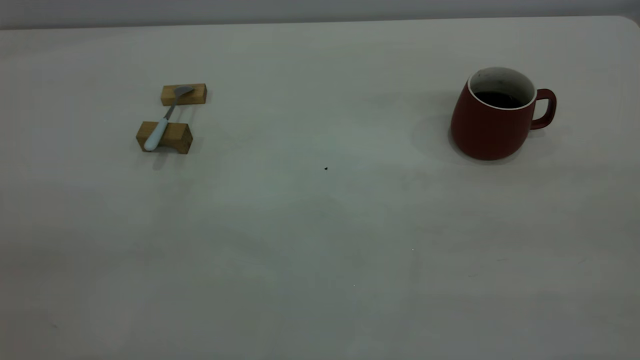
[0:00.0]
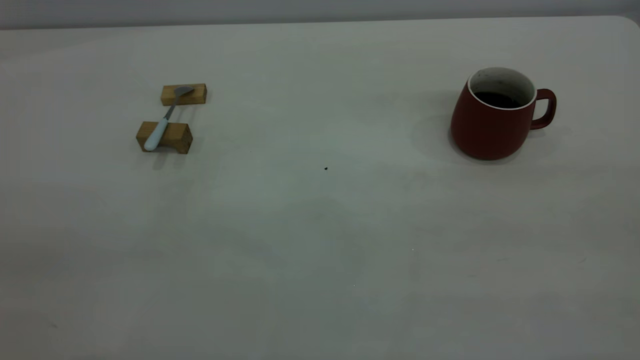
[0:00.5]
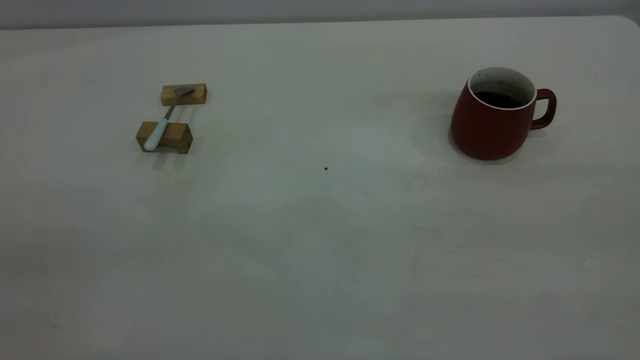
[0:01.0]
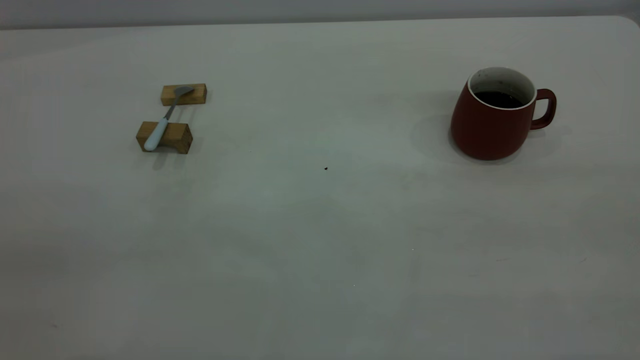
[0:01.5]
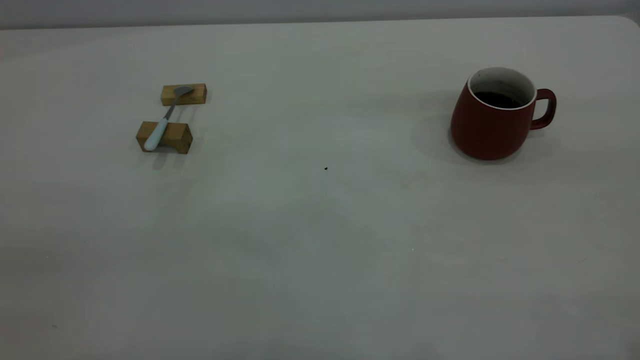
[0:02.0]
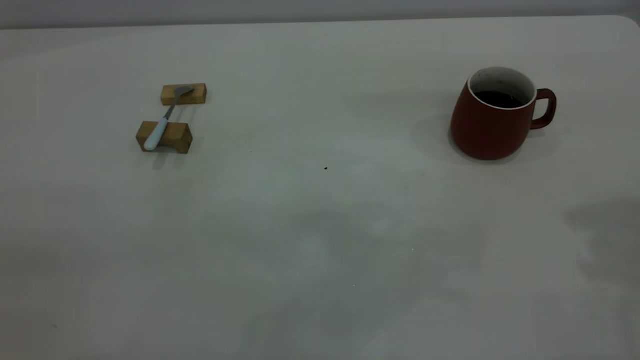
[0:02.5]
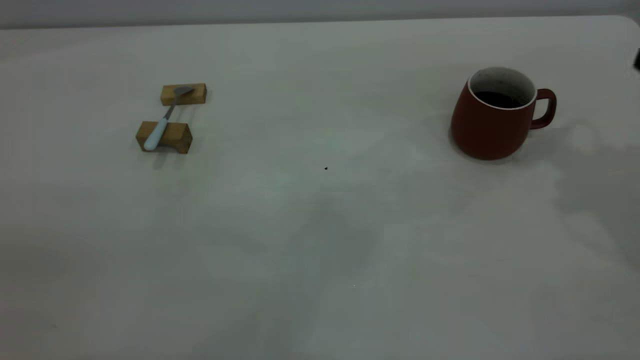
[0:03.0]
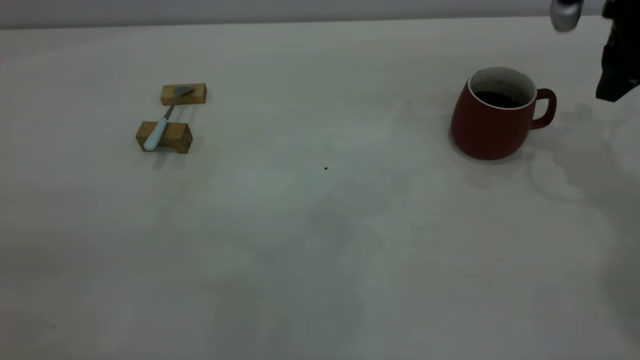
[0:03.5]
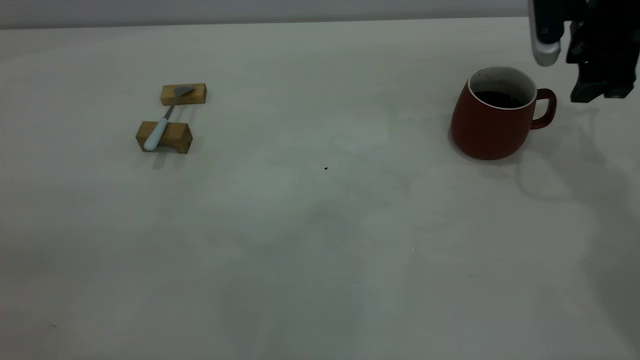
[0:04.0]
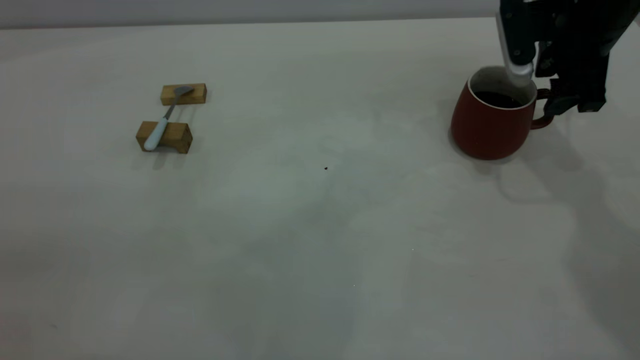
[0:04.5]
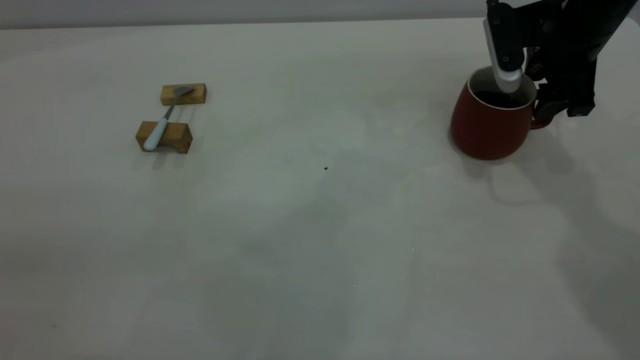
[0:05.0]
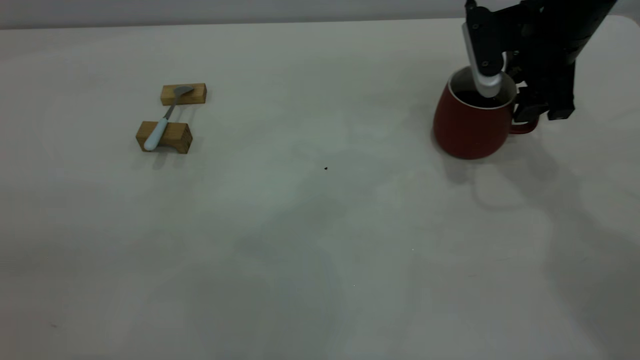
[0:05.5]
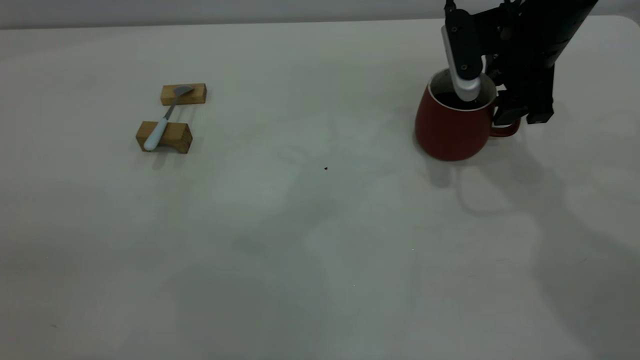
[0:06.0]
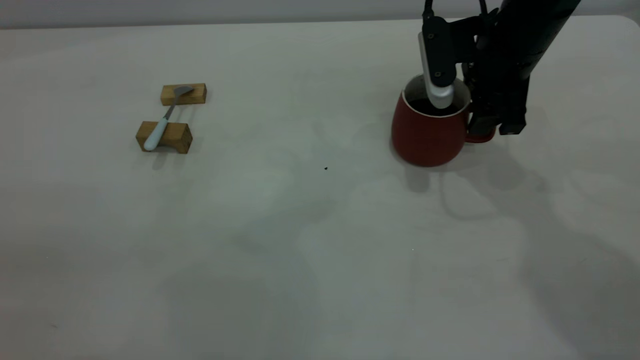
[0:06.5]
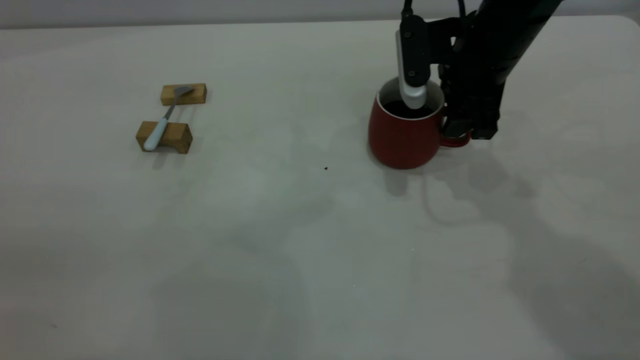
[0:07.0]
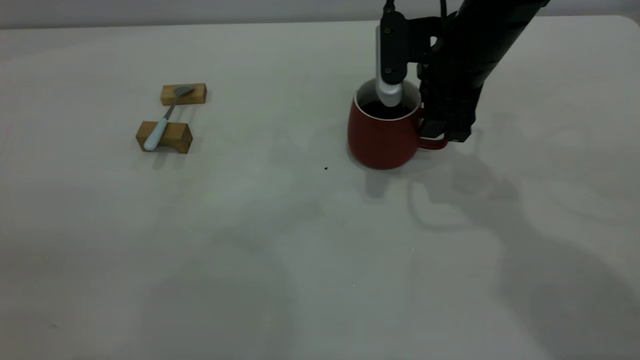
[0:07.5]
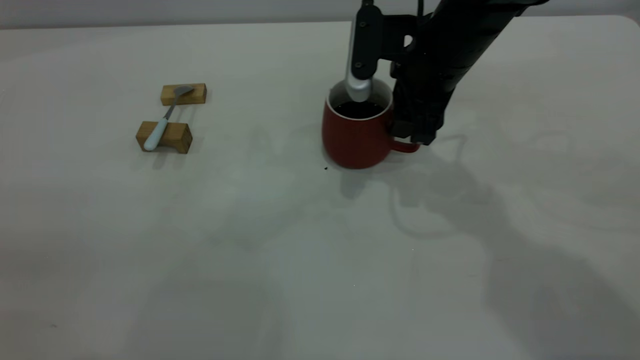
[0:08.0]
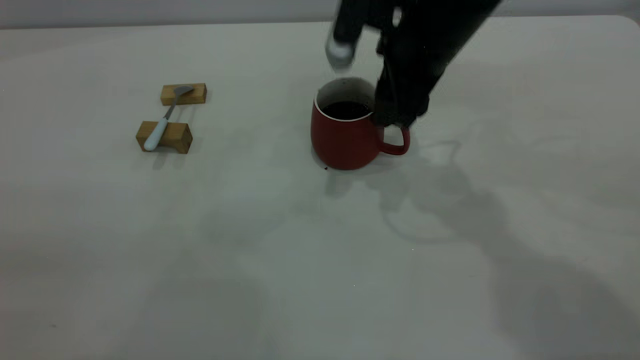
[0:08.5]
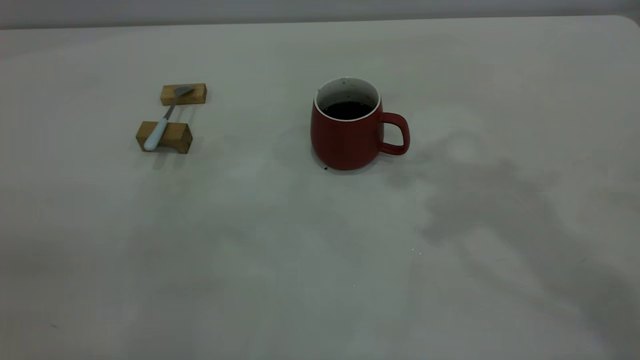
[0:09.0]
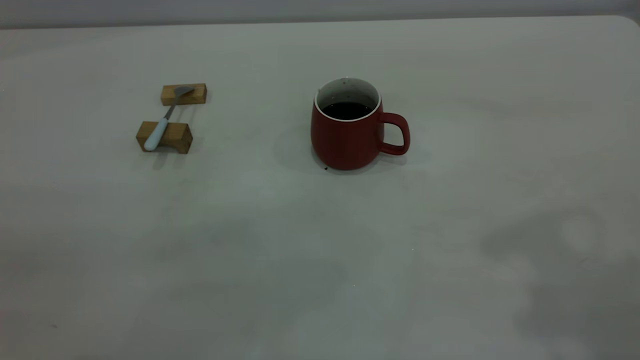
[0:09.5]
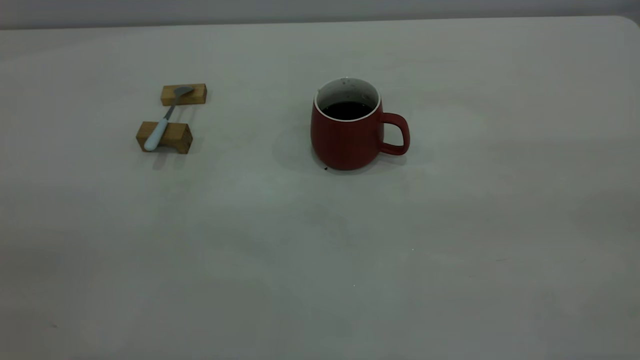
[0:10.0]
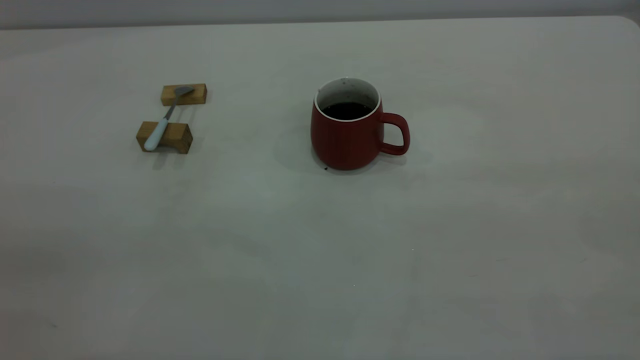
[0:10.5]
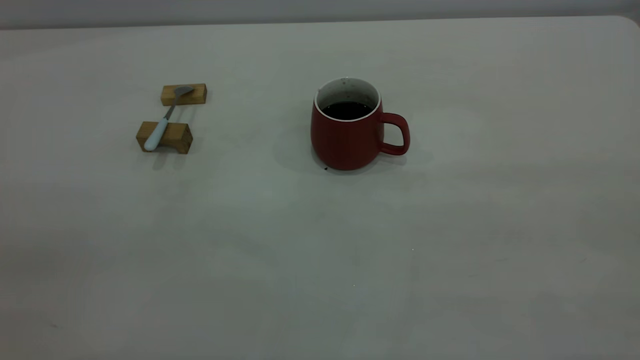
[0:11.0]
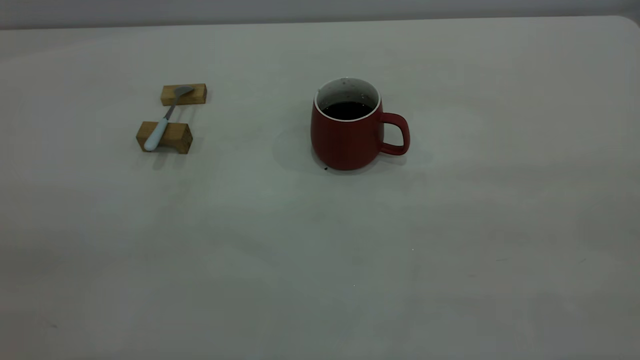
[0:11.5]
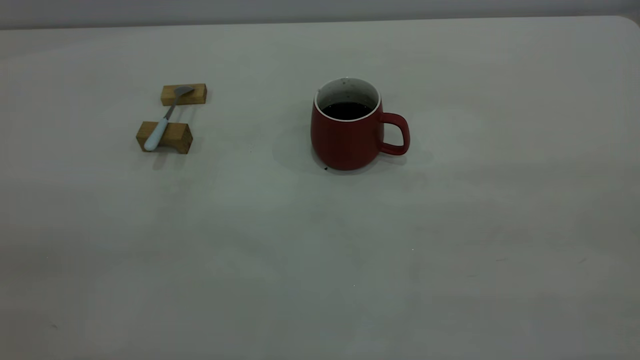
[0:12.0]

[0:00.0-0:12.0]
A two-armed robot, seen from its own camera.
Step, 0:00.0 to 0:08.5: Move the cup with coffee to the center of view.
0:02.0 to 0:04.0: The right gripper shifts about 40 cm forward and downward, and closes its fingers.
0:04.0 to 0:06.0: The right gripper heads to the left, covering roughly 10 cm.
0:06.0 to 0:08.0: The right gripper goes about 10 cm to the left, and closes its fingers.
0:08.0 to 0:10.0: The right gripper heads backward, upward and to the right, covering roughly 50 cm.

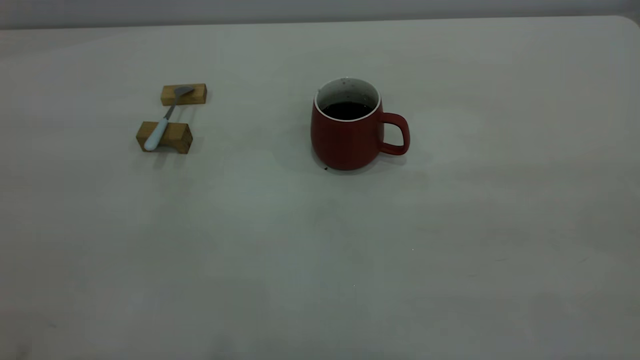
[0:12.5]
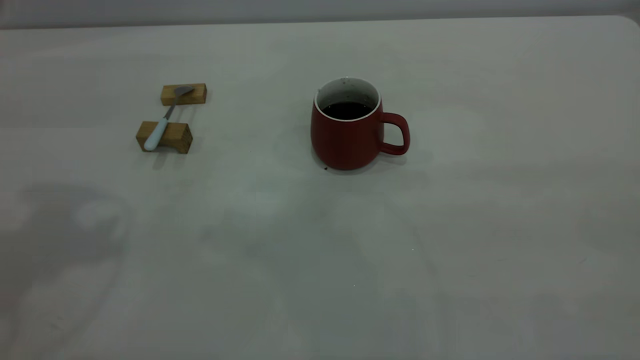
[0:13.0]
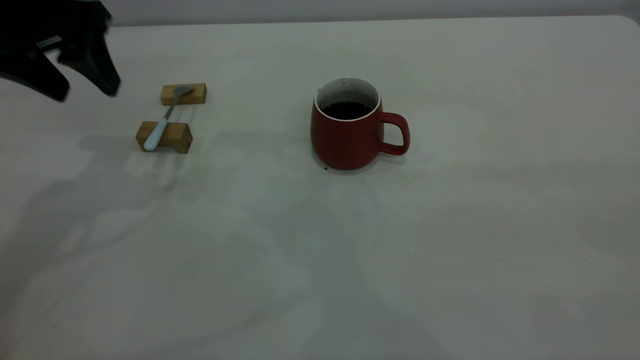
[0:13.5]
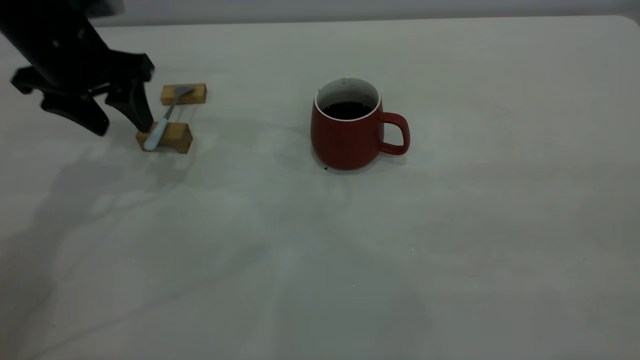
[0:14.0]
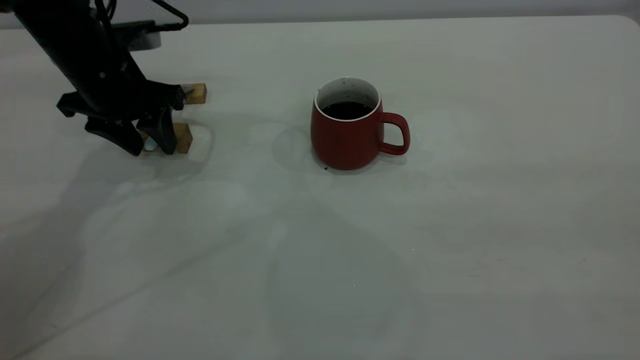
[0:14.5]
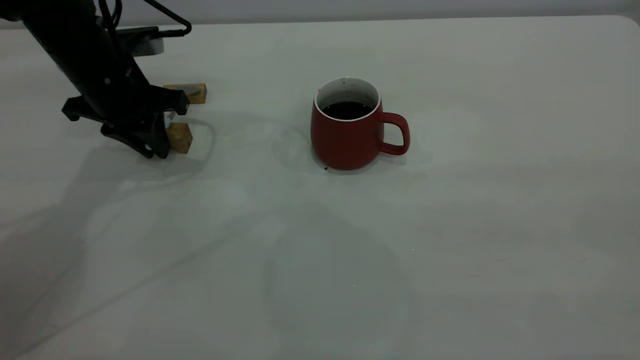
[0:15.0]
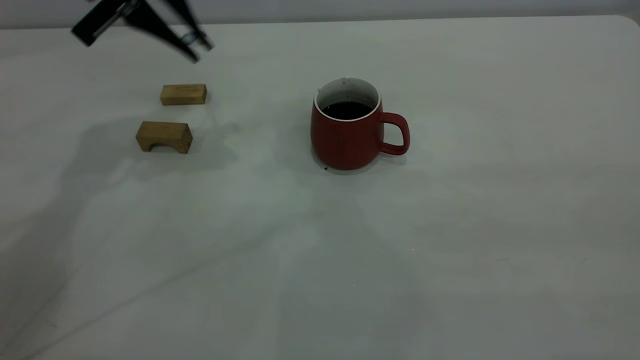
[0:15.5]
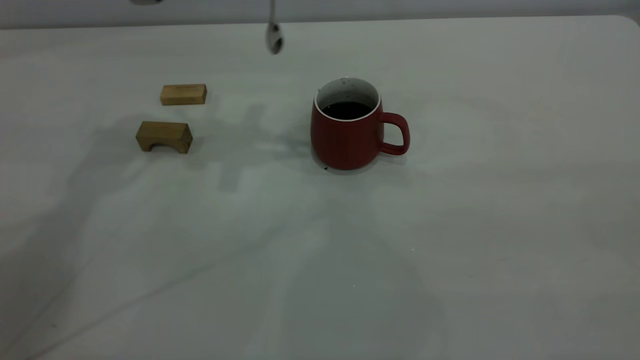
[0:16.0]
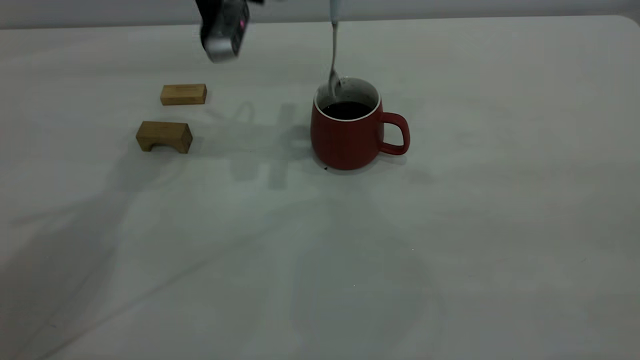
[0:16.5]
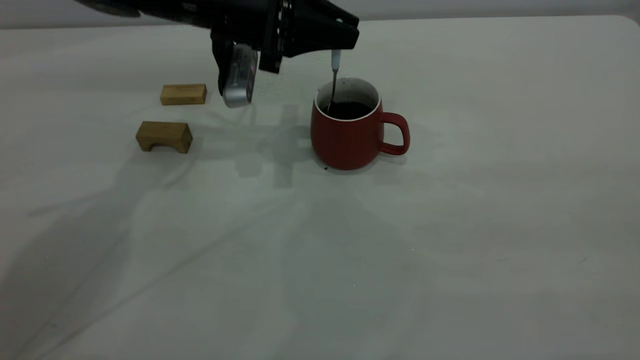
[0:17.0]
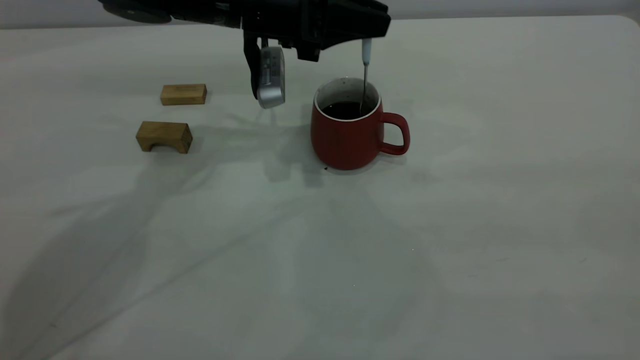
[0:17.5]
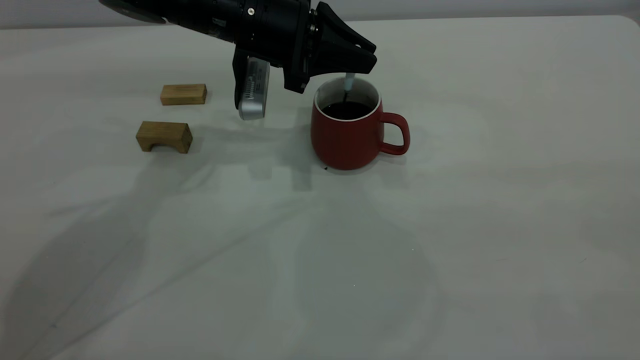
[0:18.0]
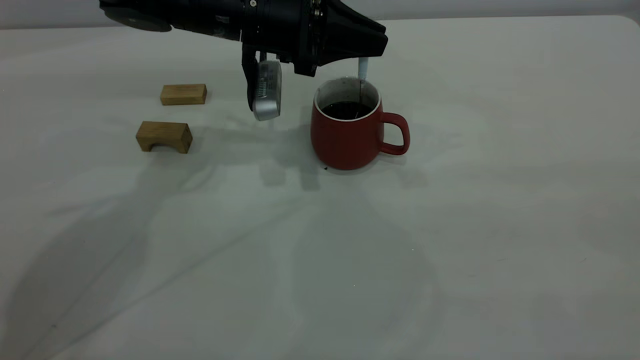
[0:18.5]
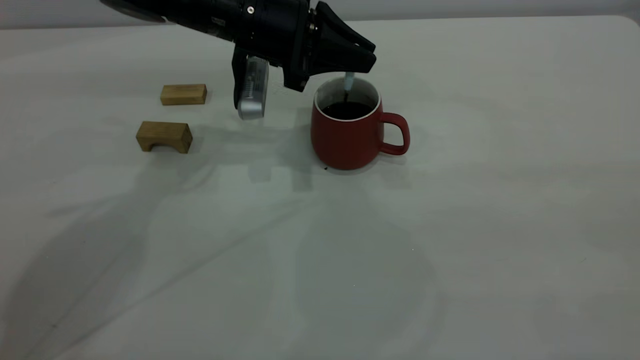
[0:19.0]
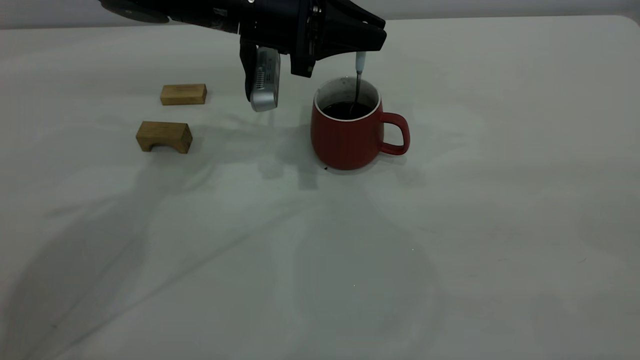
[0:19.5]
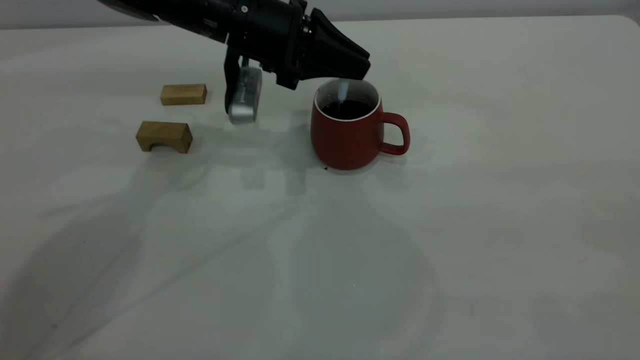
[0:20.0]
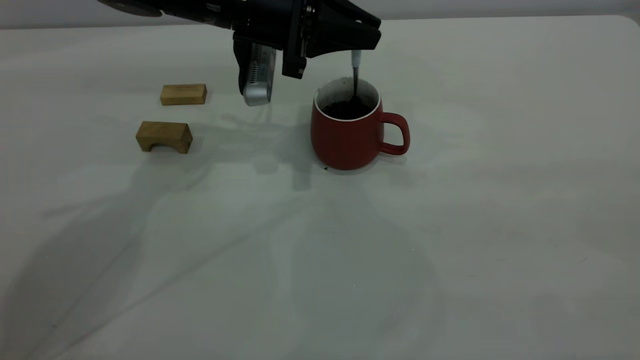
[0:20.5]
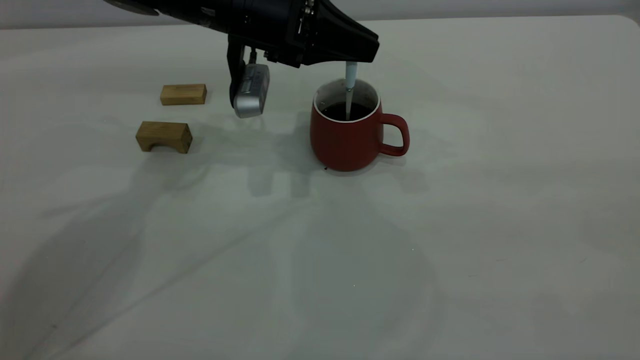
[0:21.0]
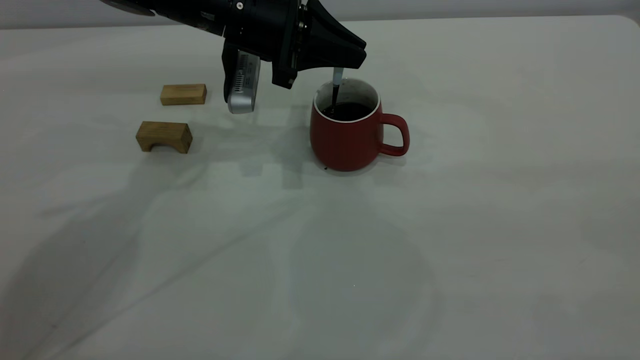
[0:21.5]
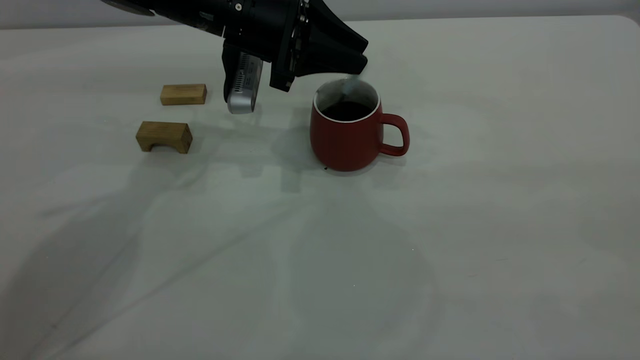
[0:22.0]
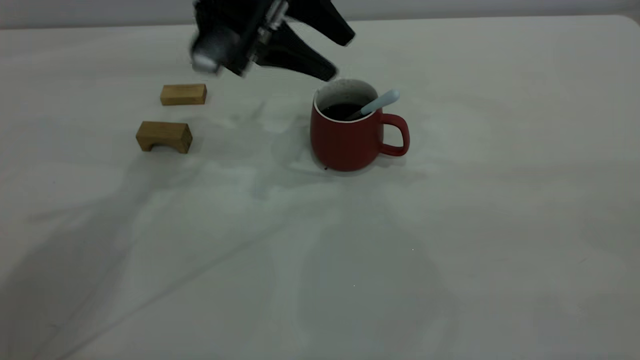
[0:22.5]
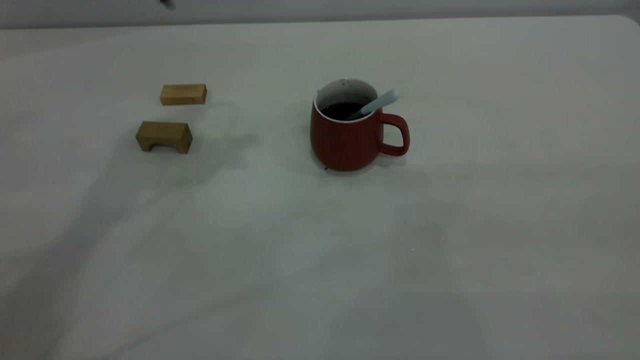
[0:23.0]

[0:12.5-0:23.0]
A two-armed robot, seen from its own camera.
Step, 0:12.5 to 0:15.0: Pick up the spoon.
Step, 0:15.5 to 0:22.5: Stir the coffee in the cup.
0:12.5 to 0:14.5: The left gripper shifts some 40 cm forward and downward.
0:14.5 to 0:16.5: The left gripper moves to the right and upward, about 15 cm, and closes up.
0:16.5 to 0:19.0: The left gripper heads downward, covering some 5 cm.
0:19.0 to 0:21.0: There are only small adjustments of the grippers.
0:21.0 to 0:23.0: The left gripper goes about 20 cm upward, and opens up.
